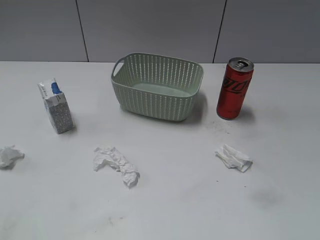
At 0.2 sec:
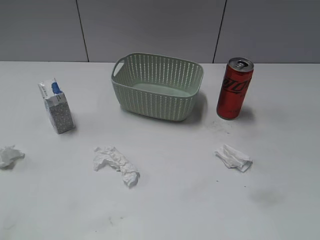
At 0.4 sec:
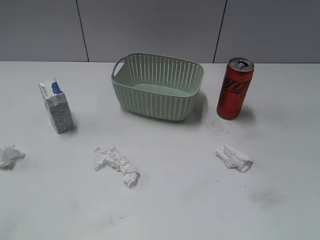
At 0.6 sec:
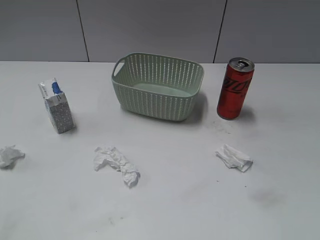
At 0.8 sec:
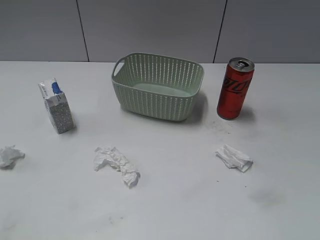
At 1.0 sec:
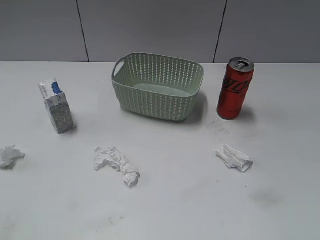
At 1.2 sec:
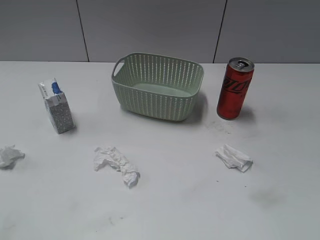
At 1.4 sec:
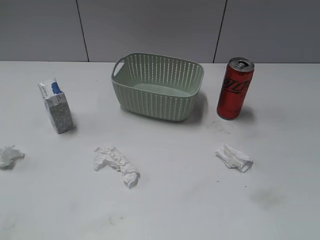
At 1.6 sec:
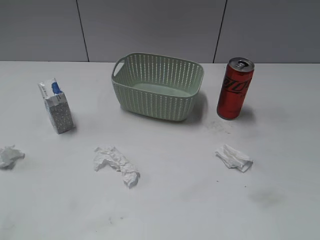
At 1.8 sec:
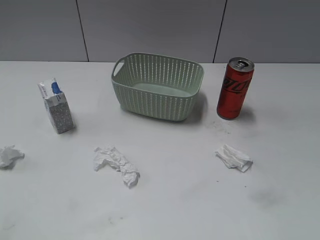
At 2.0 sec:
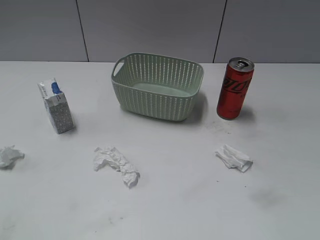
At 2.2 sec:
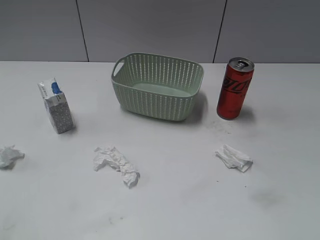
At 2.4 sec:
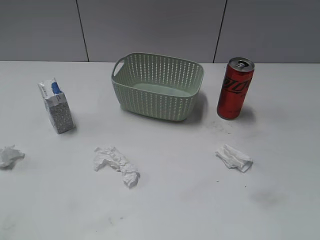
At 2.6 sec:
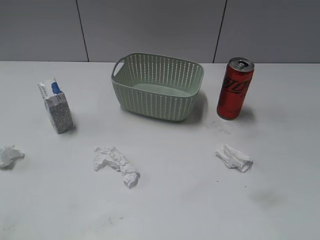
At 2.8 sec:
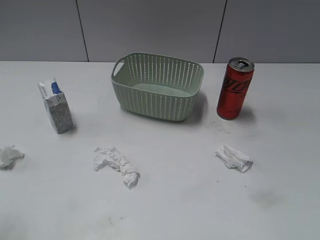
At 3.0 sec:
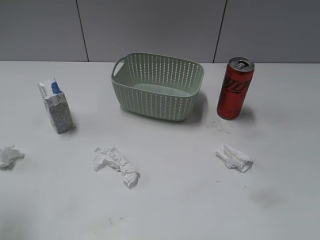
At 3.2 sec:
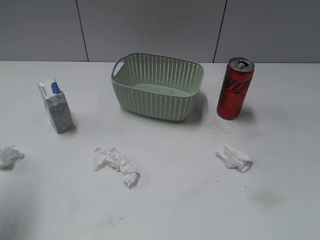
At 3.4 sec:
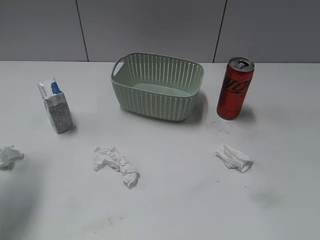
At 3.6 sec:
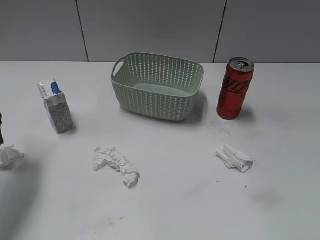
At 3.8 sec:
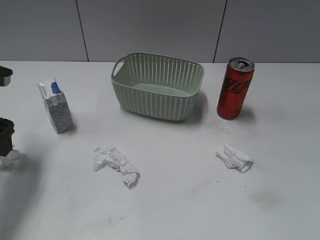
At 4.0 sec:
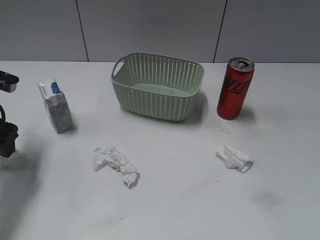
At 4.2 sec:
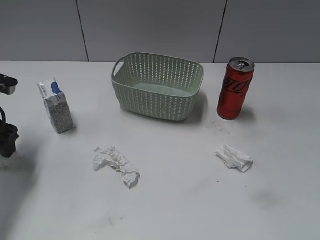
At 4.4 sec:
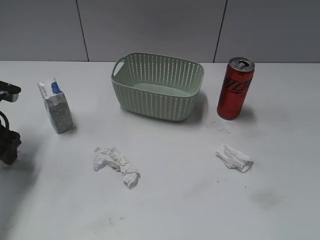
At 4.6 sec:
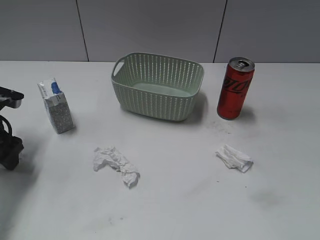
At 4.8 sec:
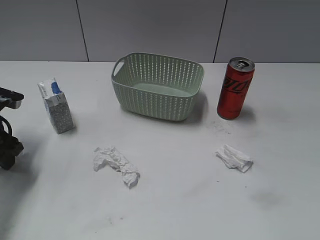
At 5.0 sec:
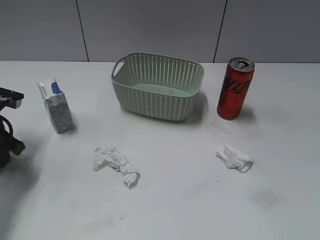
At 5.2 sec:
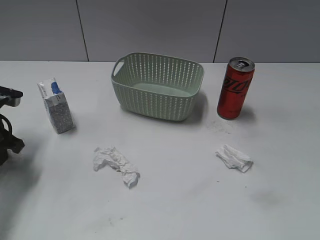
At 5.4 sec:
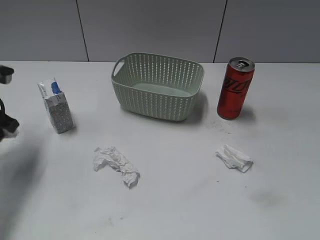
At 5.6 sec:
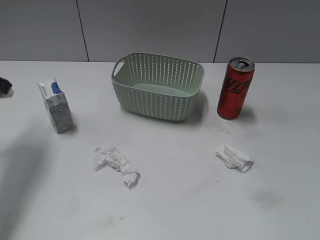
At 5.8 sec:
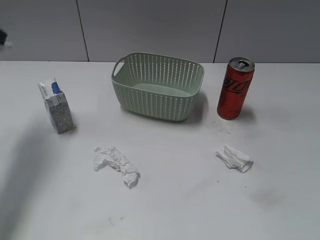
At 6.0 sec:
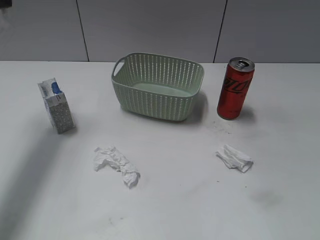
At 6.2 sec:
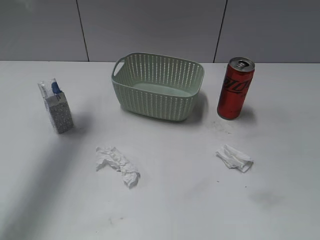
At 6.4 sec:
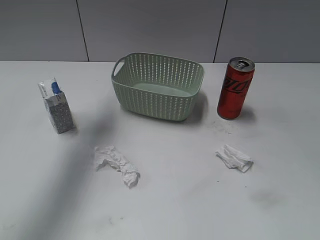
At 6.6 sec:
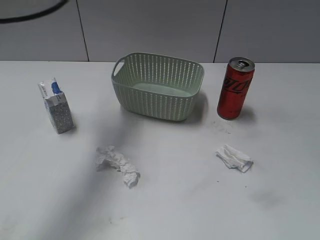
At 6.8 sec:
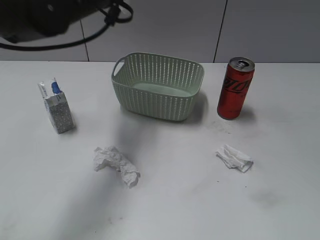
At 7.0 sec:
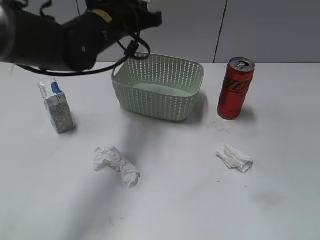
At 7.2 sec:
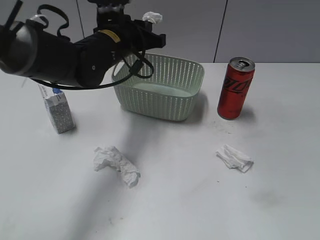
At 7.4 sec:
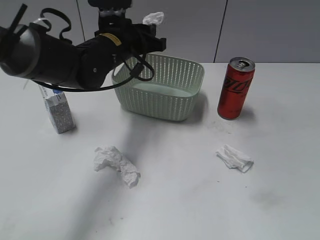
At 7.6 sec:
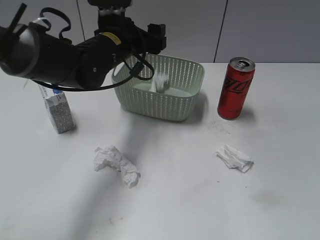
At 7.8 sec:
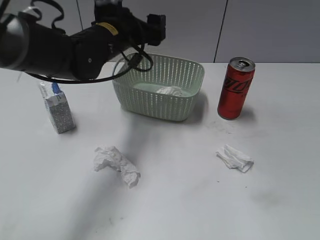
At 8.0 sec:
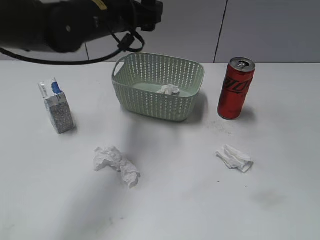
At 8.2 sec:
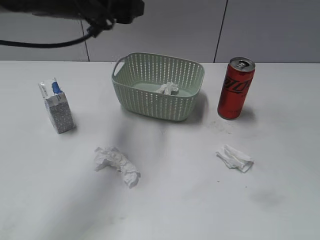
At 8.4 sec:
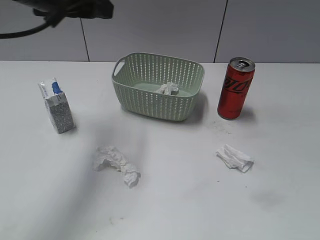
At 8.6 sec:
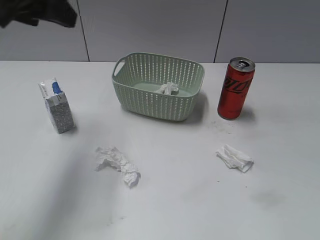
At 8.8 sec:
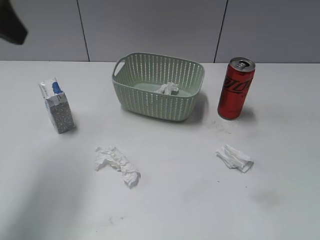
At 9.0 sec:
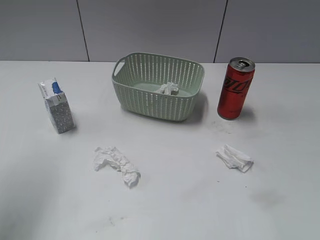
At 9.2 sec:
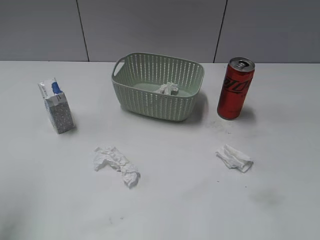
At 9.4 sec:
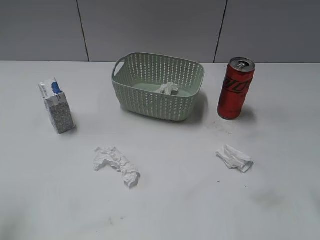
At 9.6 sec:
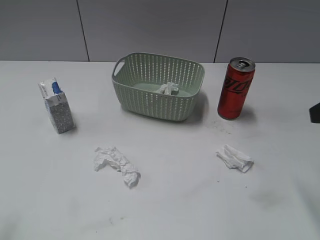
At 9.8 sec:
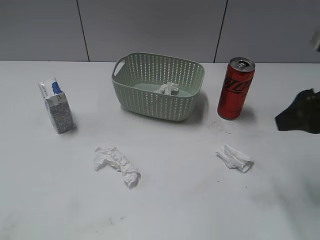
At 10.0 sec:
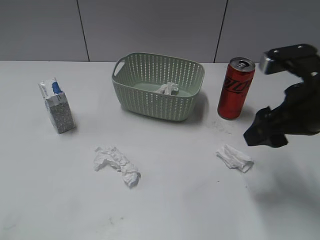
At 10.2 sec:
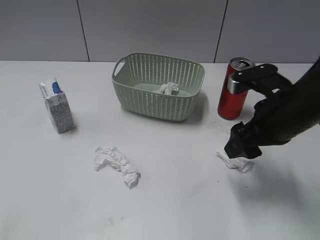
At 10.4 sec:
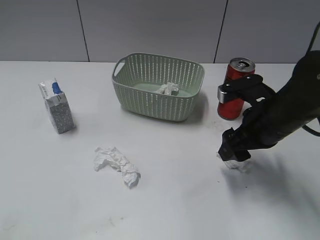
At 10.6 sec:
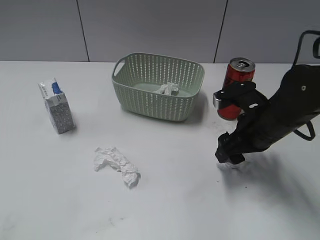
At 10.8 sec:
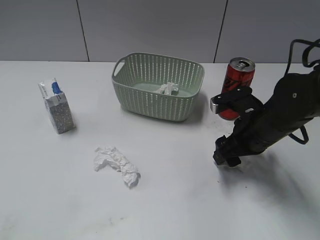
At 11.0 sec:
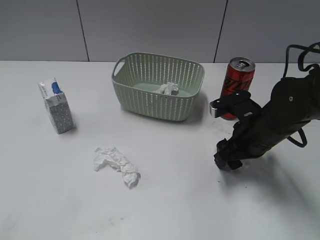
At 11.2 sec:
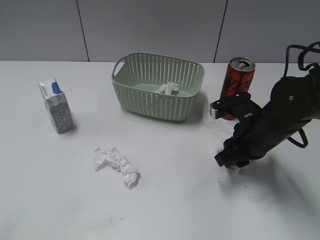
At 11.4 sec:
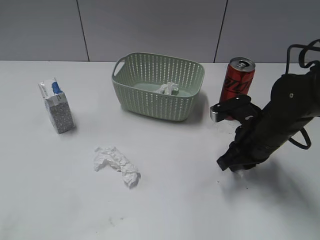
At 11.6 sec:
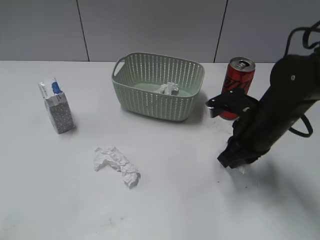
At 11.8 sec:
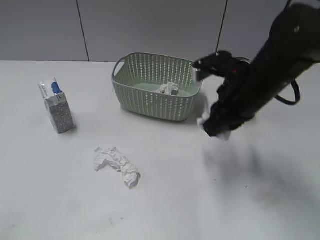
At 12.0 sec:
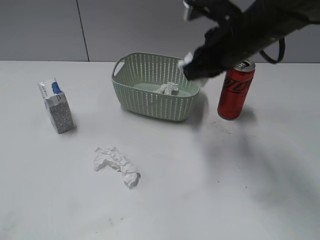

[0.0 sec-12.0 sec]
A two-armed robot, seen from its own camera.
Step, 3.2 sec to 5.4 sec: Grasp the waste paper with left gripper.
Step, 5.6 sec to 7.6 sec: Place the waste paper in the basket with left gripper.
Step, 7.8 sec to 11.4 sec: Grasp the waste paper with right gripper.
3.0 sec to 4.4 sec: The left gripper goes some 25 cm forward and downward.
4.4 sec to 6.0 sec: The left gripper is displaced upward by approximately 20 cm, and closes its fingers.
6.0 sec to 7.6 sec: The left gripper shifts some 25 cm to the right and downward, and opens its fingers.
7.6 sec to 9.0 sec: The right gripper is displaced forward by approximately 10 cm. The left gripper travels to the left, upward and backward by some 30 cm.
9.0 sec to 10.4 sec: The right gripper moves forward, downward and to the left, roughly 25 cm; the left gripper goes some 25 cm backward.
10.4 sec to 12.0 sec: The right gripper moves upward, to the left and forward, approximately 15 cm, and closes.

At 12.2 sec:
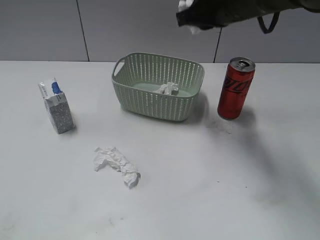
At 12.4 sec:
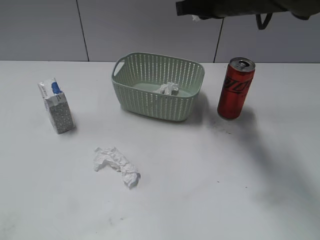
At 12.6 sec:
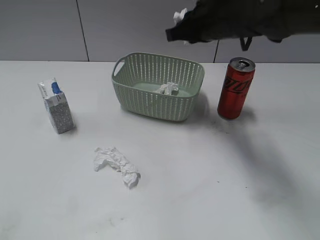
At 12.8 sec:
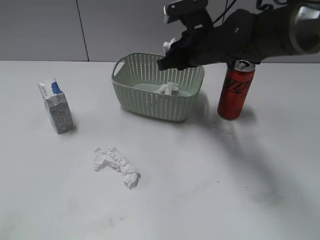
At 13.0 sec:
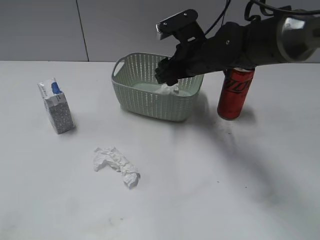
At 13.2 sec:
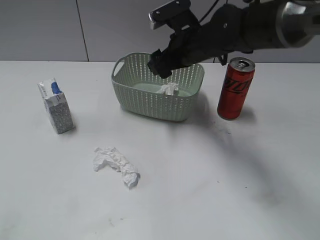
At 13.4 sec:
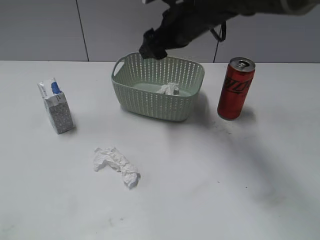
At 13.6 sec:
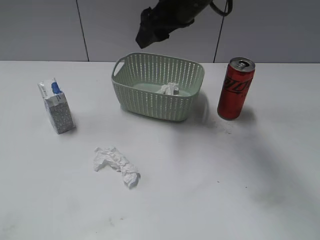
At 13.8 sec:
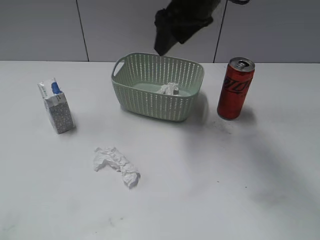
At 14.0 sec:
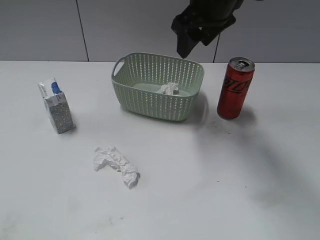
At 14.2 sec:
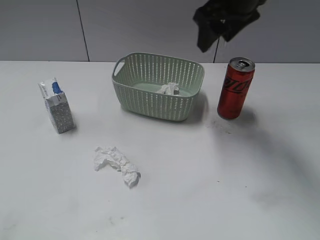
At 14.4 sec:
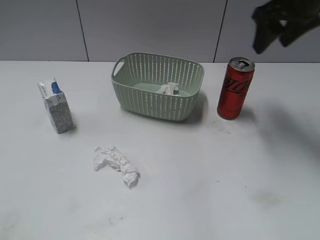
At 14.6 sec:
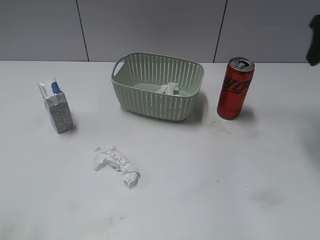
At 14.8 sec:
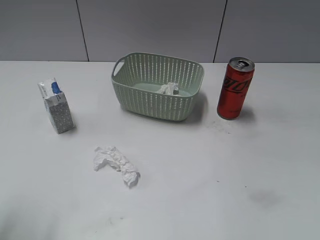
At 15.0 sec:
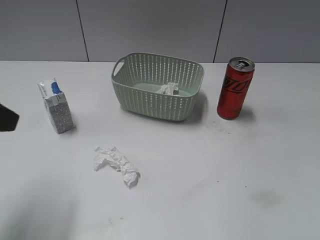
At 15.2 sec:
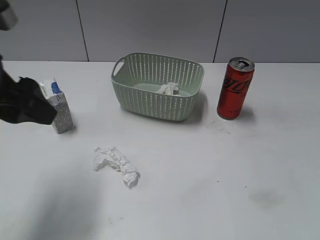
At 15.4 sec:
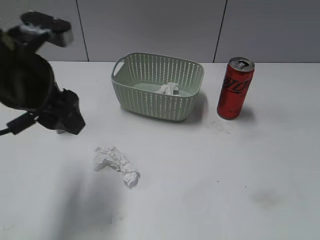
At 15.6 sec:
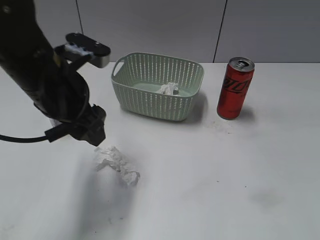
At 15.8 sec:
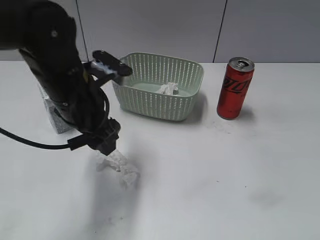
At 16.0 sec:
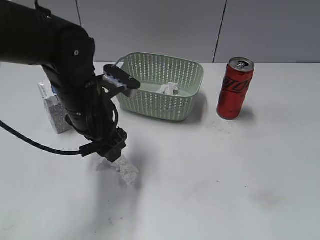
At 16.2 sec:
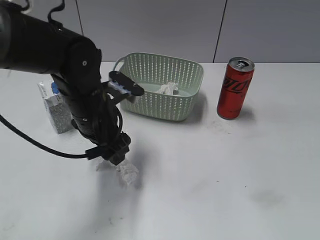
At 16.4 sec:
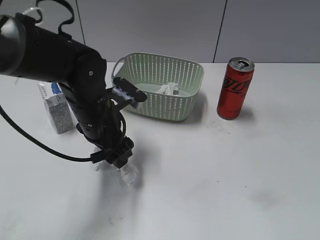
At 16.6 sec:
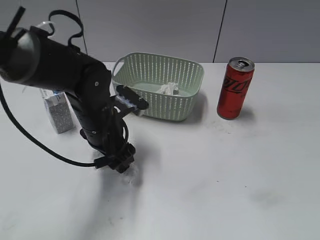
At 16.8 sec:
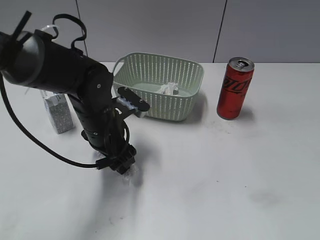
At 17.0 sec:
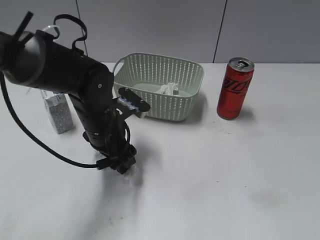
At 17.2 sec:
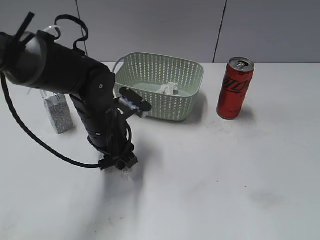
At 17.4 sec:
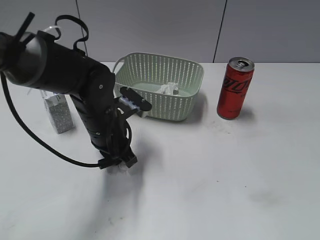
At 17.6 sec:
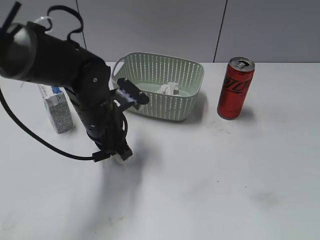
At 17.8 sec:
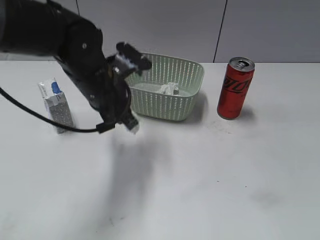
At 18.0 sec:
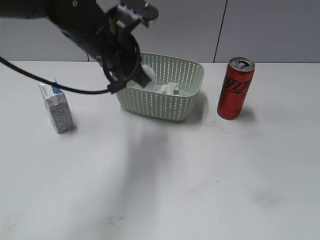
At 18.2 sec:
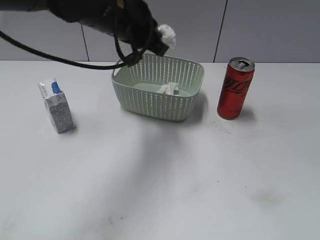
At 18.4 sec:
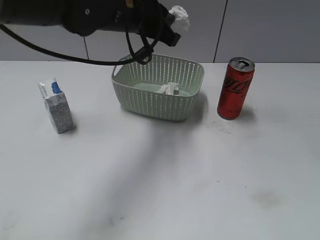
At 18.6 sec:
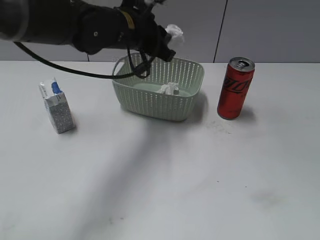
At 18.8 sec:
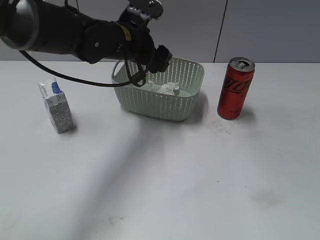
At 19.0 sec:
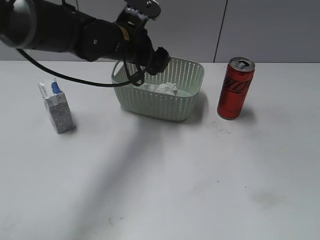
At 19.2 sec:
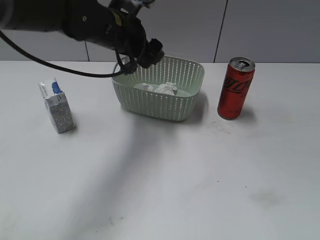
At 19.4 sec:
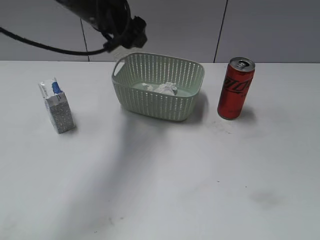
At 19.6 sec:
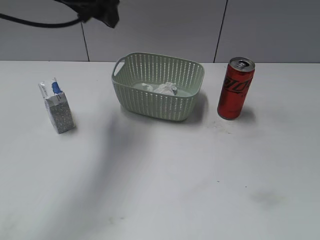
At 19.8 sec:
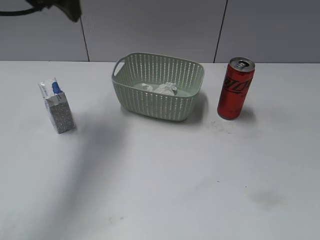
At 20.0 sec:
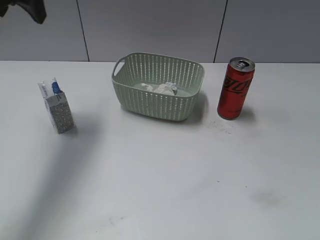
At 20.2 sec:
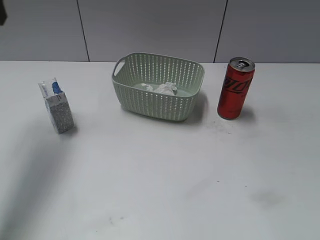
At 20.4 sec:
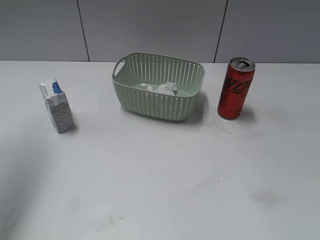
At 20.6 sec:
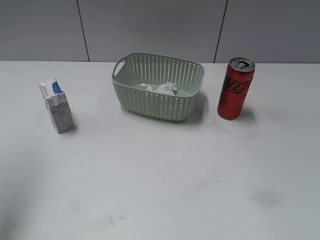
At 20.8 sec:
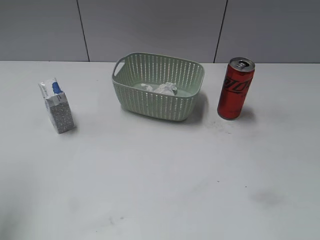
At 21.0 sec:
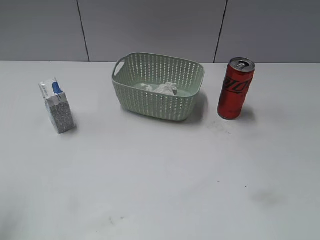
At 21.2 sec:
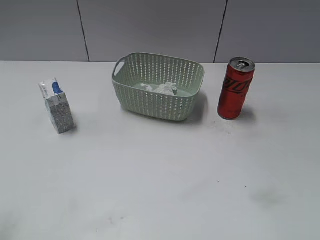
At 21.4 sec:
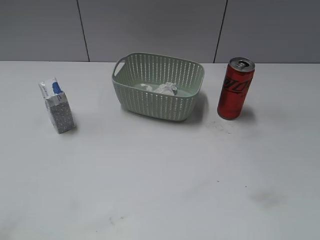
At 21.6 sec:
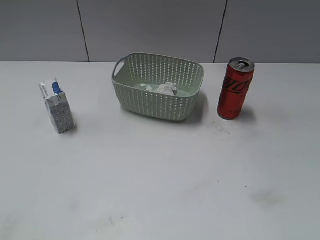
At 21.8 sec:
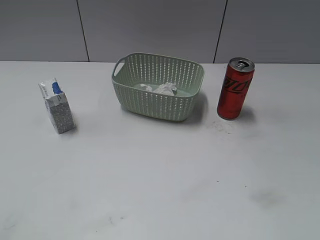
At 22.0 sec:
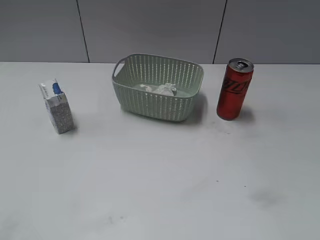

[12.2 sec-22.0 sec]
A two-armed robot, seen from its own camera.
Step, 12.2 sec to 13.0 sec: Place the waste paper in the basket with right gripper.
Step, 13.2 sec to 17.6 sec: Grasp the waste paper with left gripper.
Step, 17.8 sec to 19.2 sec: Place the waste paper in the basket with left gripper.
12.2 sec to 13.6 sec: The right gripper moves to the left, approximately 5 cm, moves about 10 cm downward and comes back, and opens its fingers.
13.6 sec to 15.0 sec: The left gripper travels forward by roughly 15 cm. The right gripper moves to the right and backward, about 30 cm.
15.0 sec to 16.4 sec: The right gripper goes about 25 cm backward. Meanwhile the left gripper heads to the right, downward and forward, covering some 25 cm.
16.4 sec to 17.8 sec: The left gripper travels upward by roughly 5 cm, and closes its fingers.
17.8 sec to 19.2 sec: The left gripper travels forward by about 5 cm, and opens its fingers.
19.2 sec to 20.6 sec: The left gripper goes approximately 30 cm to the left, upward and backward.
20.6 sec to 22.0 sec: The left gripper is displaced backward and downward by roughly 25 cm.
